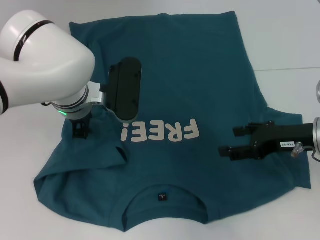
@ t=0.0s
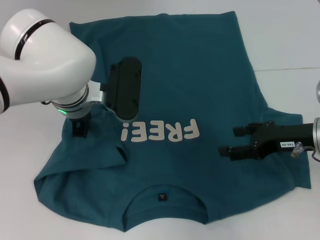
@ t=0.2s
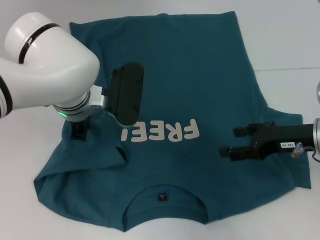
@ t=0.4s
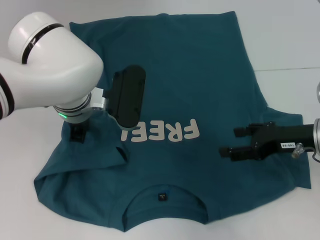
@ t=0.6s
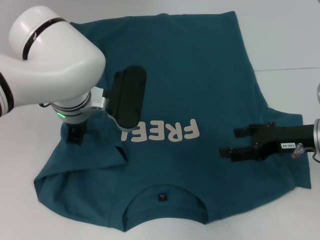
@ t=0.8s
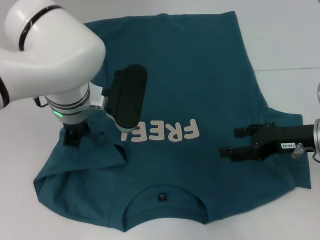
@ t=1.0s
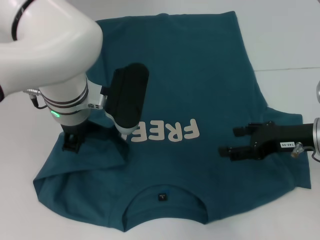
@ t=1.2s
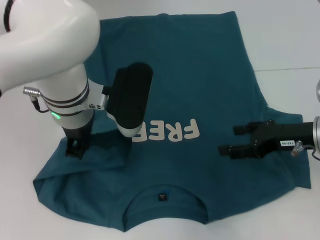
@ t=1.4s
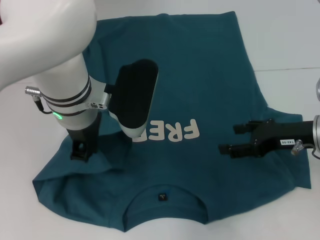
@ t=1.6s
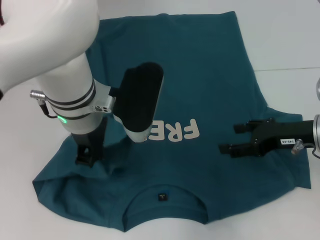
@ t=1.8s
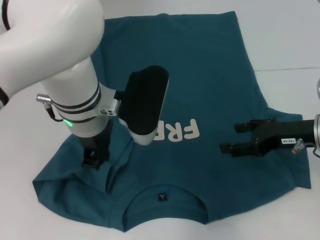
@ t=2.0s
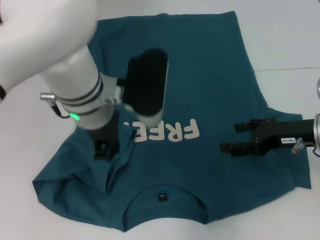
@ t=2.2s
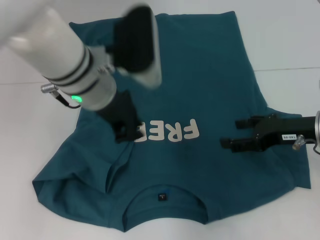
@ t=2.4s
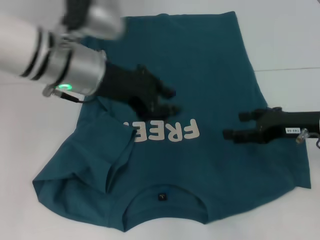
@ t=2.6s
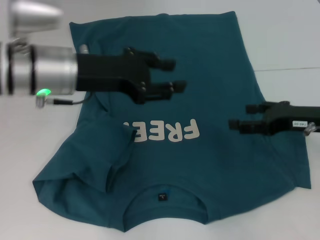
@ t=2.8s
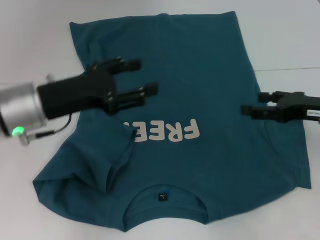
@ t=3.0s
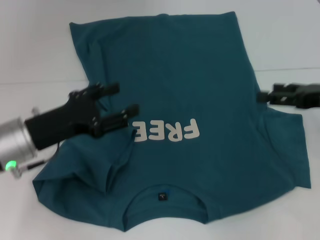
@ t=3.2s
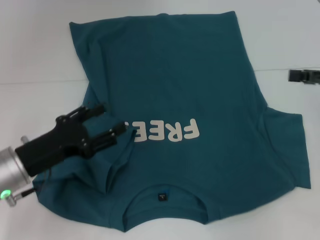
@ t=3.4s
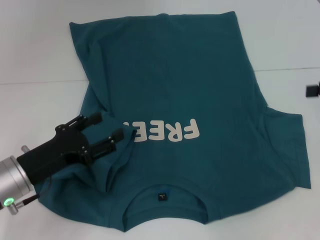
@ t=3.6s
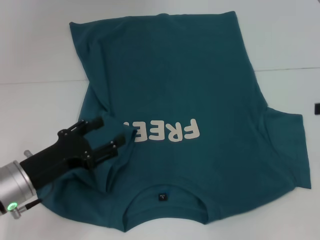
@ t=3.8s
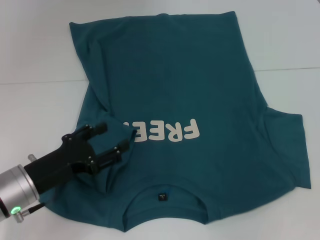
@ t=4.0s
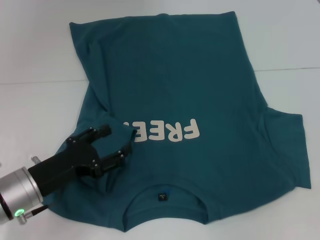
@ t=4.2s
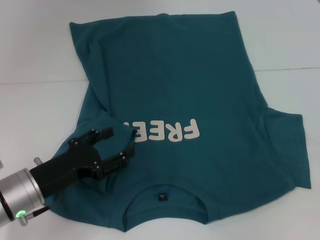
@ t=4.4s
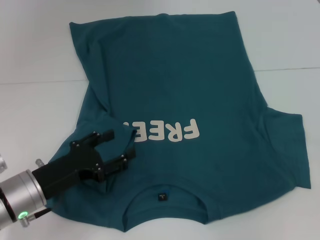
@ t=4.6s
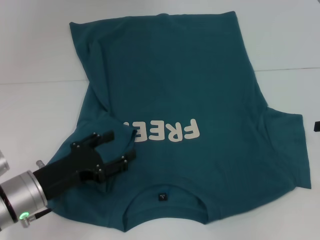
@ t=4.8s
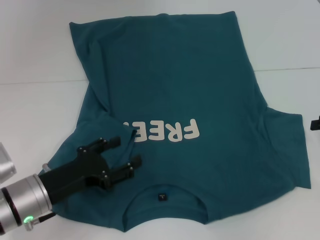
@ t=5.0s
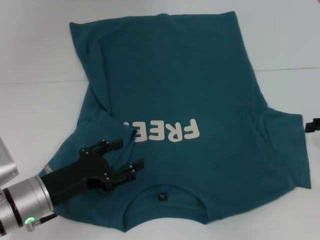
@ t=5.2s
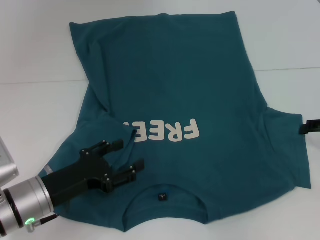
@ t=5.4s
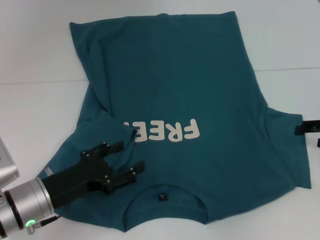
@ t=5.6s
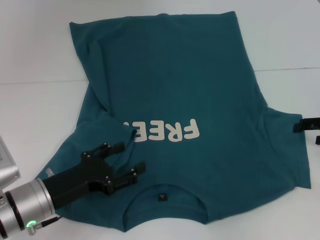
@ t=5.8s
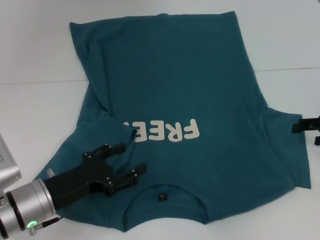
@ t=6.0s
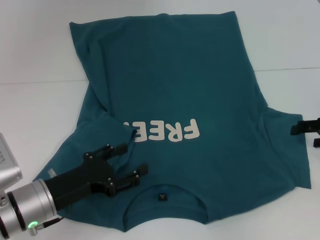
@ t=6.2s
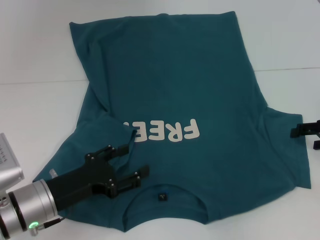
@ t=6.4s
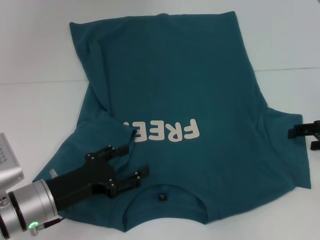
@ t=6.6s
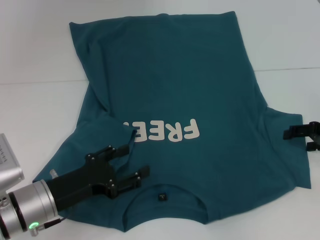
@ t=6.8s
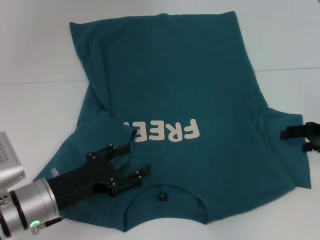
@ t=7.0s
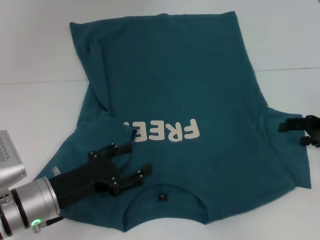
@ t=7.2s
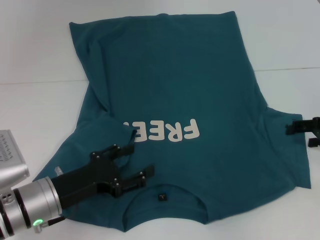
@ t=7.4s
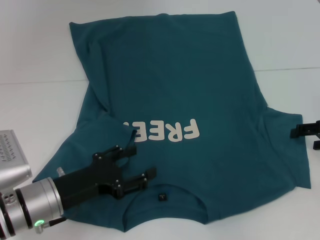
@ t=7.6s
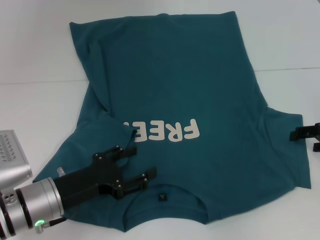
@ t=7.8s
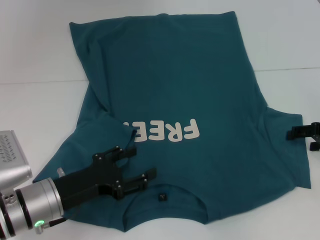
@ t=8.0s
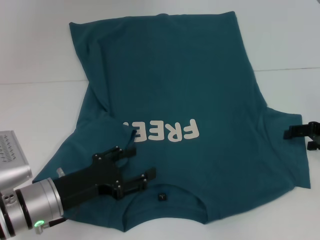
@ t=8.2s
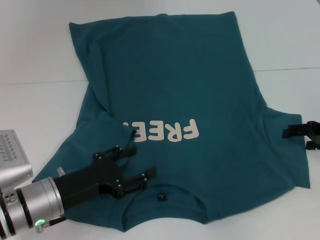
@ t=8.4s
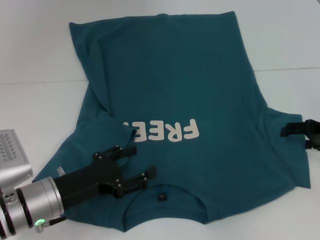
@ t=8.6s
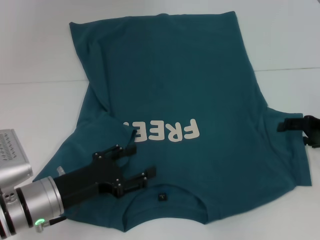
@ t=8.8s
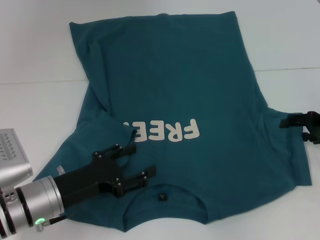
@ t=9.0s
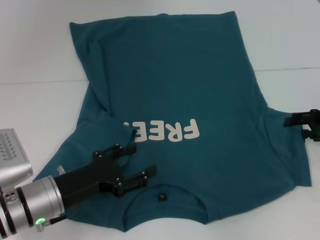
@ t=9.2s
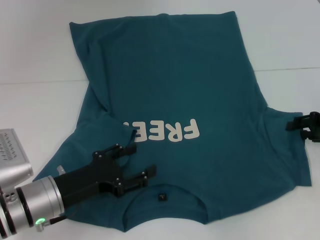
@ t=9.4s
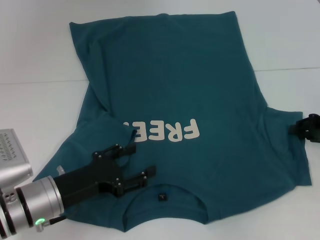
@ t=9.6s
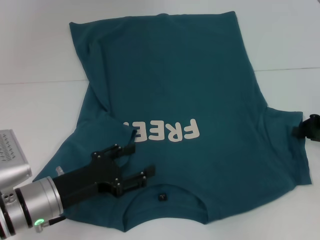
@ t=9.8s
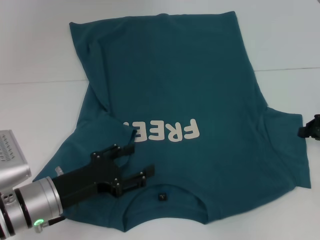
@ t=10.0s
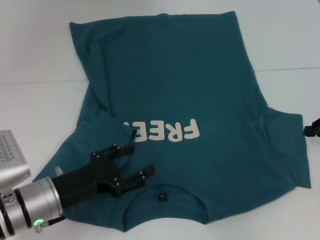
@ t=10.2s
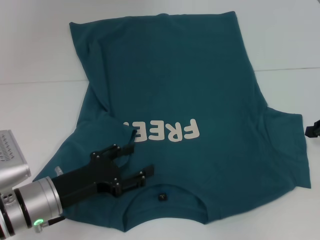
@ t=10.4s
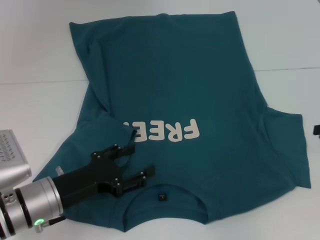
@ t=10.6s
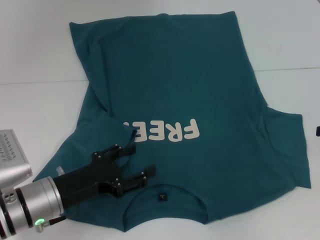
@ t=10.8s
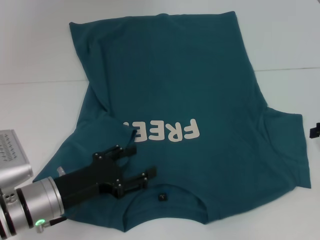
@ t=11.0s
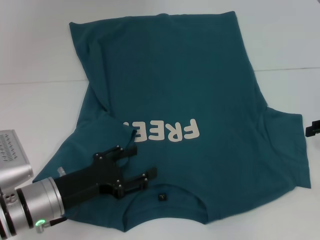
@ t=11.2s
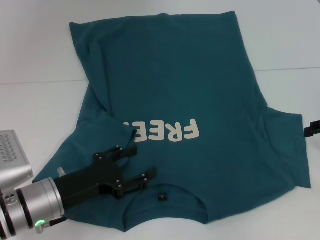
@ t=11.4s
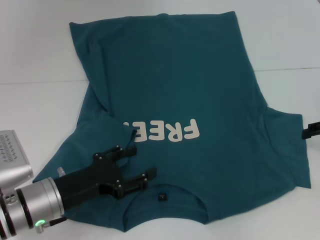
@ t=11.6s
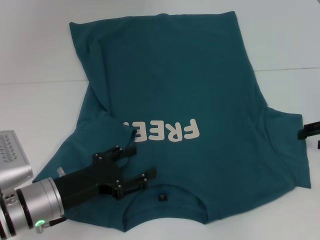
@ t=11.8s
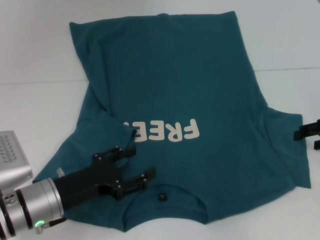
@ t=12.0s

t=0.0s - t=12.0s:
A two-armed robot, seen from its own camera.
Step, t=0.0s - t=3.6s: Fold the bottom left sleeve with your left hand.
t=0.0s - t=1.6s: The left gripper shifts some 5 cm upward, and closes its fingers.
t=1.6s - t=3.0s: The left gripper heads to the left, covering some 10 cm, and opens up.
t=3.0s - t=4.4s: The left gripper moves downward and backward, about 15 cm. The right gripper is displaced to the right by about 10 cm.
t=4.4s - t=6.0s: The right gripper shifts by approximately 5 cm.
t=6.0s - t=9.0s: The grippers move only a little.
t=9.0s - t=10.4s: The right gripper closes.

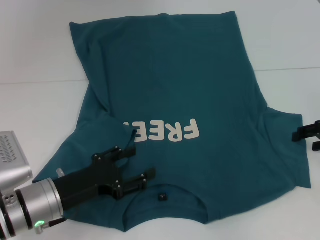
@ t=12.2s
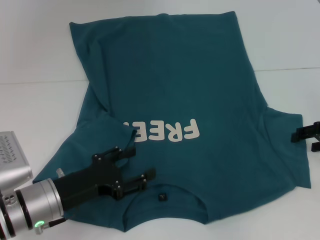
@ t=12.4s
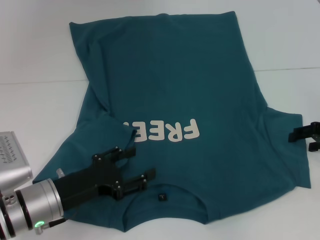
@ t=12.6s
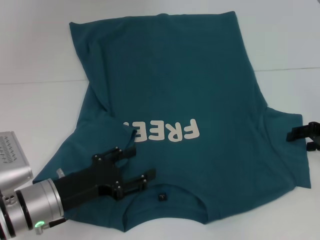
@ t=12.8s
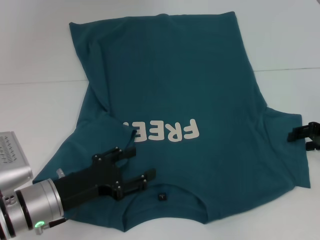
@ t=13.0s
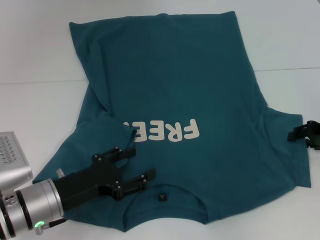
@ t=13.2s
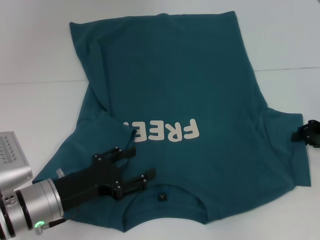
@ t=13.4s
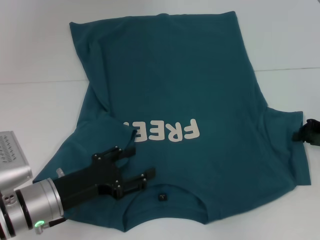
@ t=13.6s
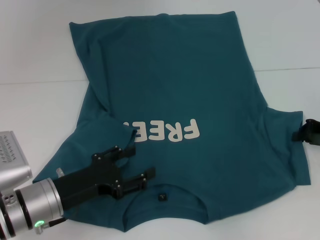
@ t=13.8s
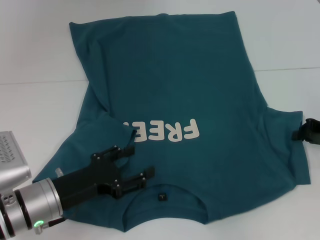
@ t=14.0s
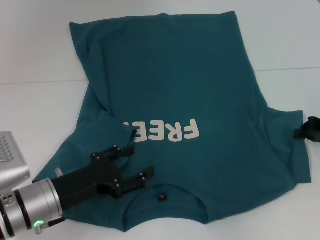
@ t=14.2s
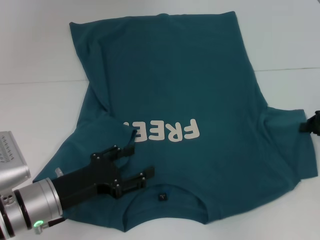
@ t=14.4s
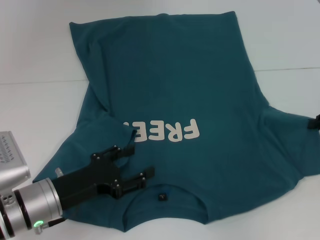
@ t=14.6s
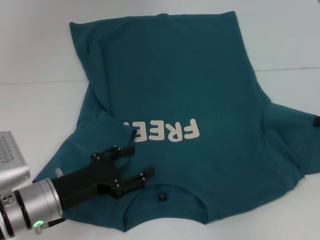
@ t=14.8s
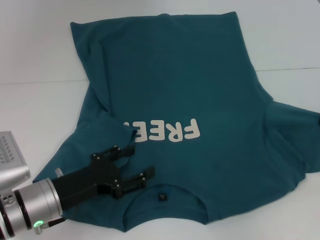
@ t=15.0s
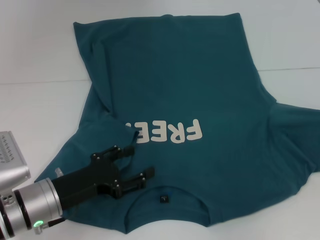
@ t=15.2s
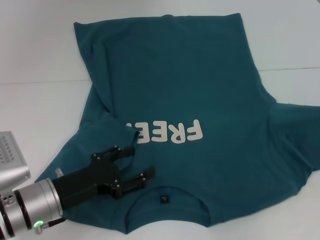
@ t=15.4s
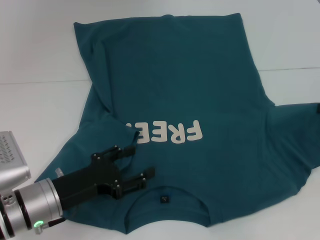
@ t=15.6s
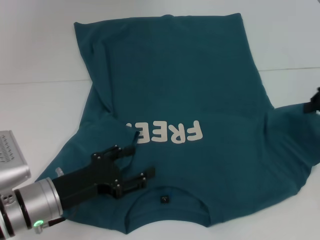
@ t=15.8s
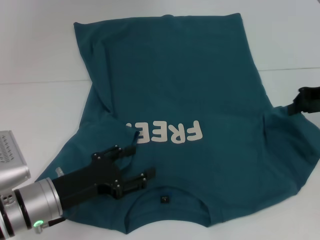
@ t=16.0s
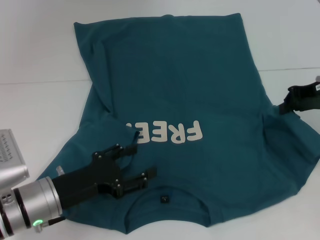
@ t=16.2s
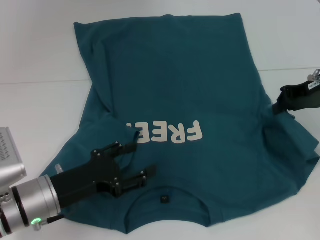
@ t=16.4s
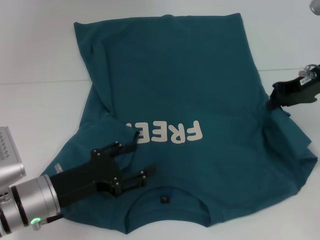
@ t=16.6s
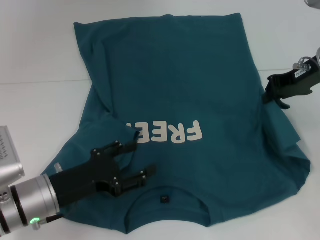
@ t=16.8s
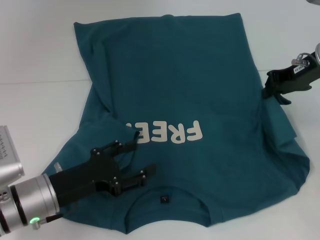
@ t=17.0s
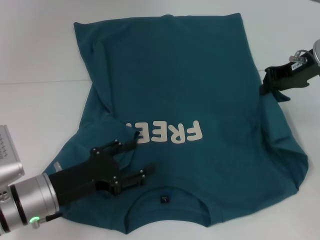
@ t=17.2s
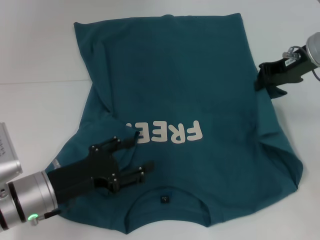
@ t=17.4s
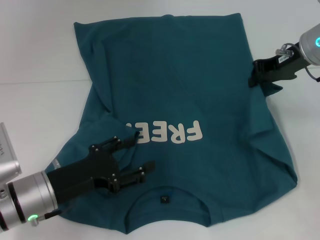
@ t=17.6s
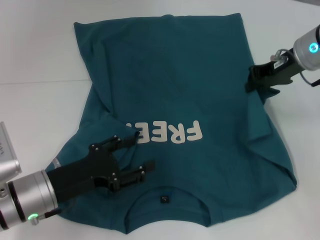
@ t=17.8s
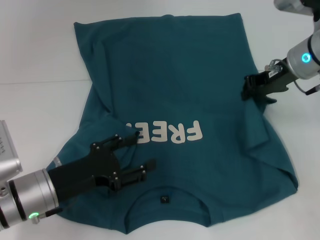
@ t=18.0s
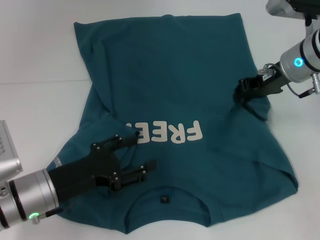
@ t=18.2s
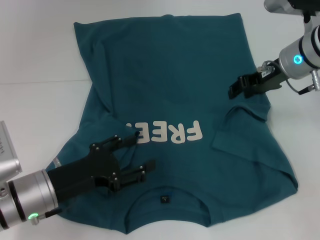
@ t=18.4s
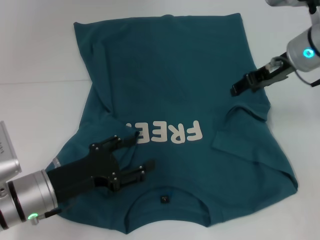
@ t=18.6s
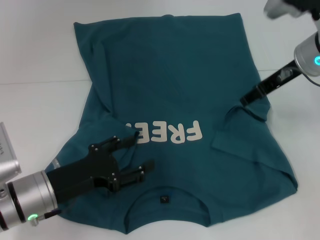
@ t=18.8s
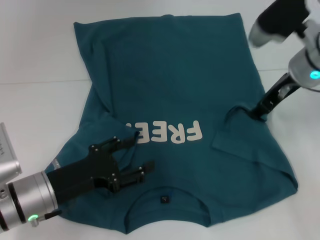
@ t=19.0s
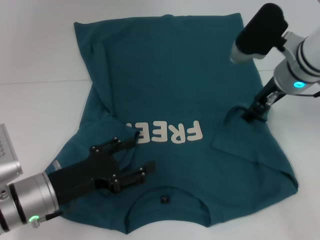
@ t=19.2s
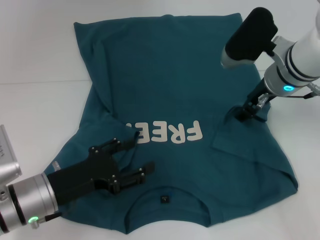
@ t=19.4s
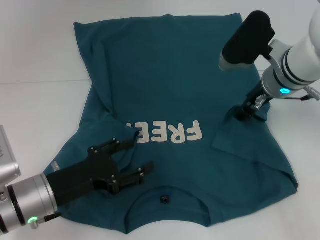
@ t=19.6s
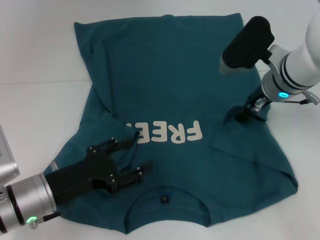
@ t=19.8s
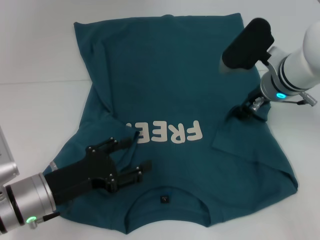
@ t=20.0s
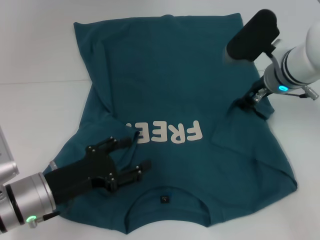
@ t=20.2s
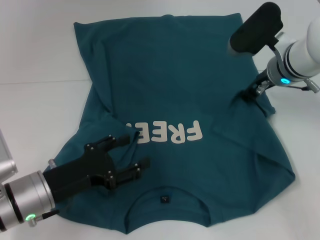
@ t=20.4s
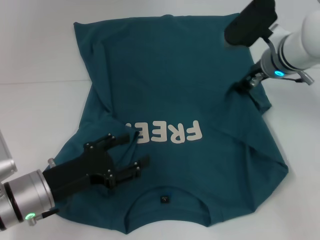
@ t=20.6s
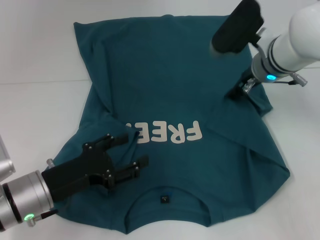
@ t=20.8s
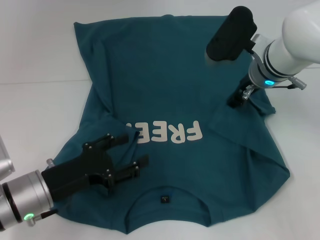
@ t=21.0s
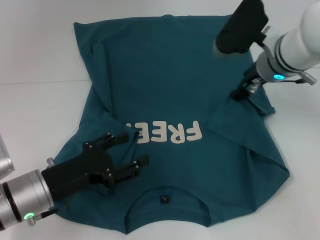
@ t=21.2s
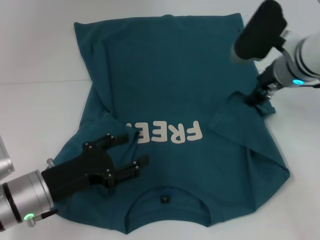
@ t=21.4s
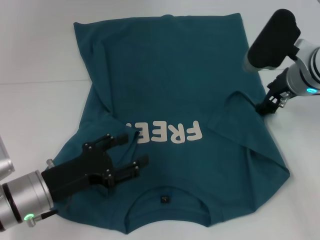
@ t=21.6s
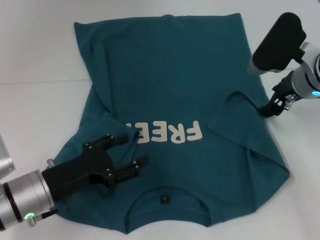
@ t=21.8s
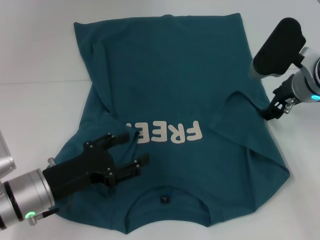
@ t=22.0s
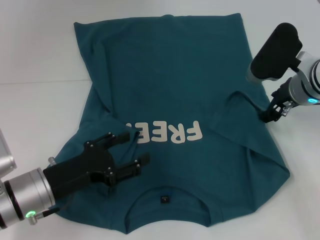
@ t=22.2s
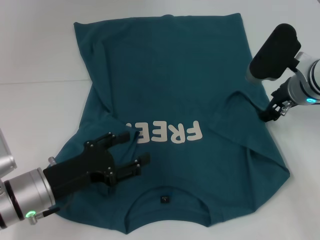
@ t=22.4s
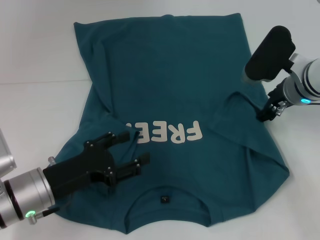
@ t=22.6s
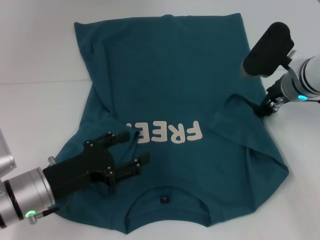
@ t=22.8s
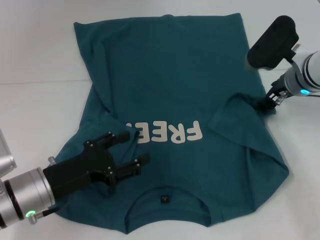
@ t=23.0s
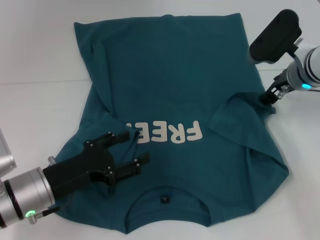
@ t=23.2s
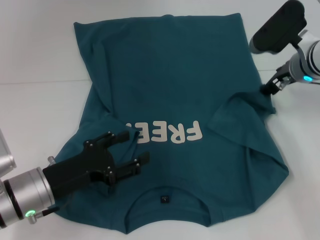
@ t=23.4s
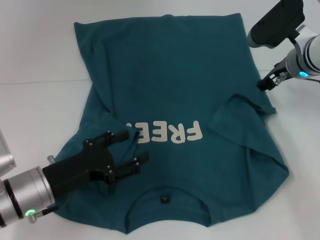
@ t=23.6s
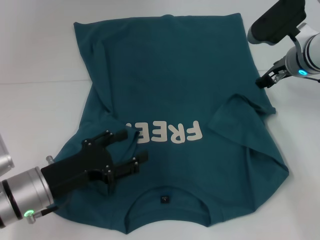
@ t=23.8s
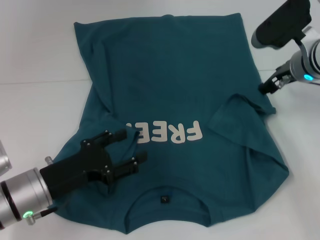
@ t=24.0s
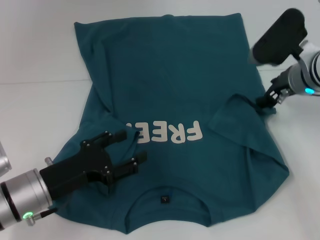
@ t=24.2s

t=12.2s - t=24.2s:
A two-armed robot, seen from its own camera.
t=12.2s - t=13.8s: The right gripper closes its fingers.
t=13.8s - t=15.2s: The right gripper is displaced to the right by about 5 cm.
t=15.2s - t=16.6s: The right gripper goes about 15 cm to the left, forward and upward.
t=16.6s - t=18.2s: The right gripper shifts some 5 cm to the left.
t=18.2s - t=19.8s: The right gripper shifts by roughly 5 cm, and opens.
t=19.8s - t=21.2s: The grippers make only small movements.
t=21.2s - t=22.6s: The right gripper moves about 5 cm.
t=22.6s - t=24.2s: The grippers stay close to where they were, moving slightly.
